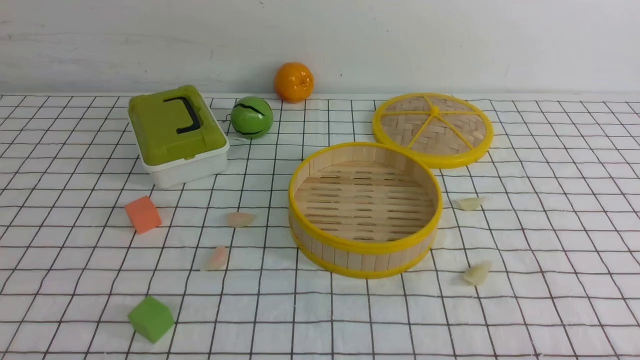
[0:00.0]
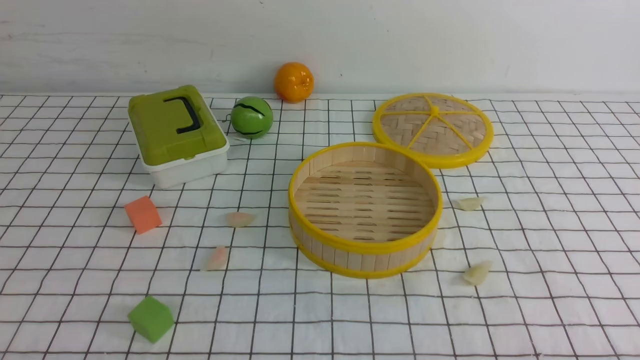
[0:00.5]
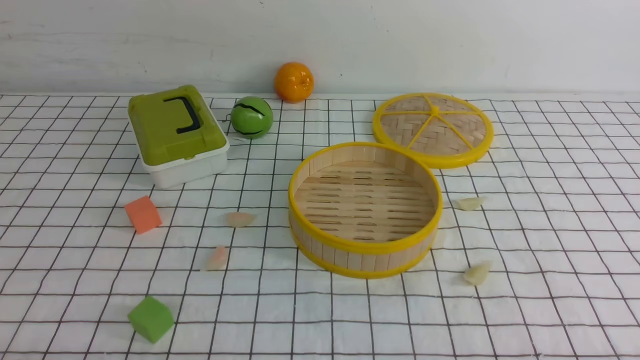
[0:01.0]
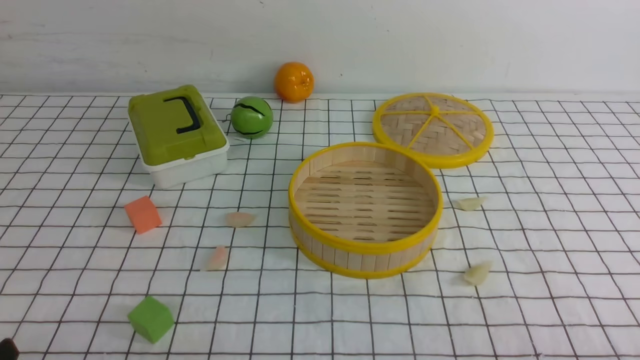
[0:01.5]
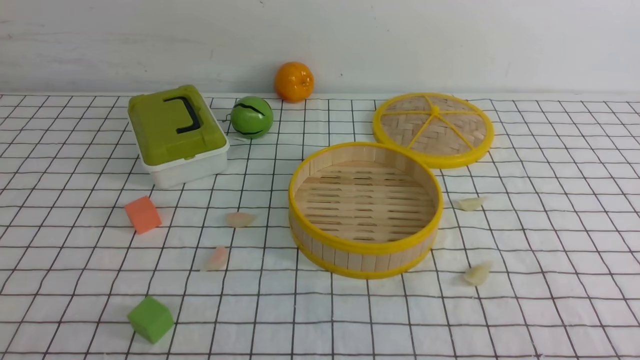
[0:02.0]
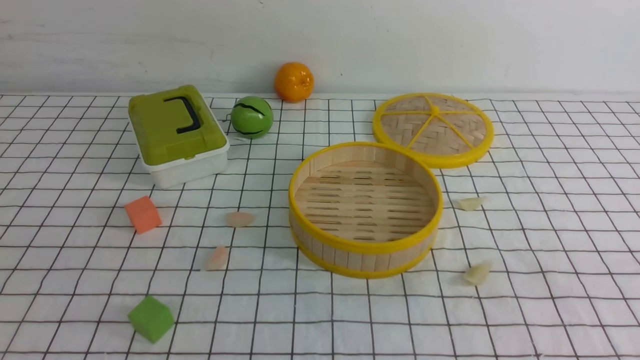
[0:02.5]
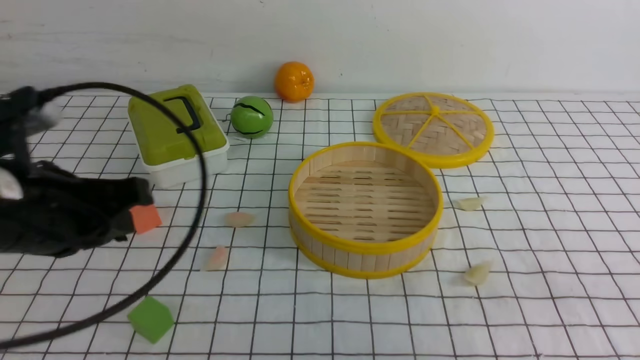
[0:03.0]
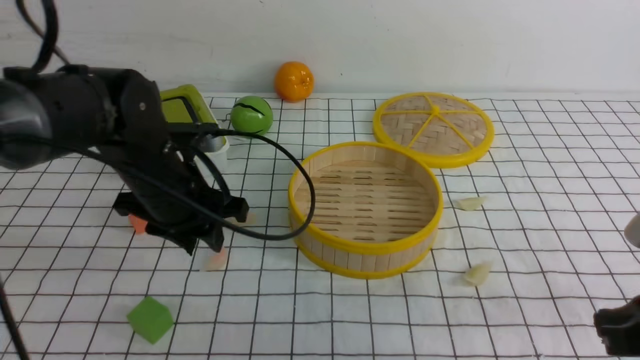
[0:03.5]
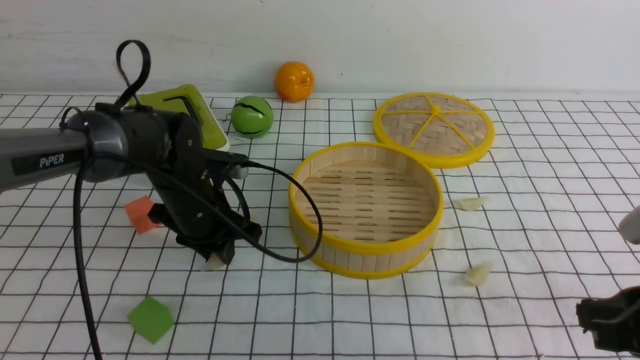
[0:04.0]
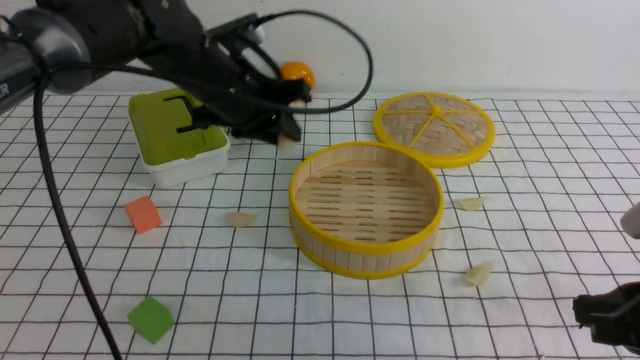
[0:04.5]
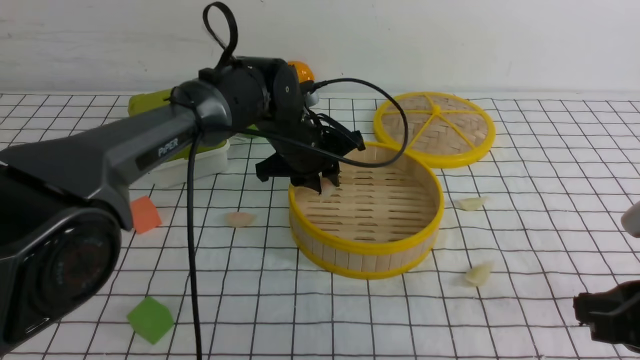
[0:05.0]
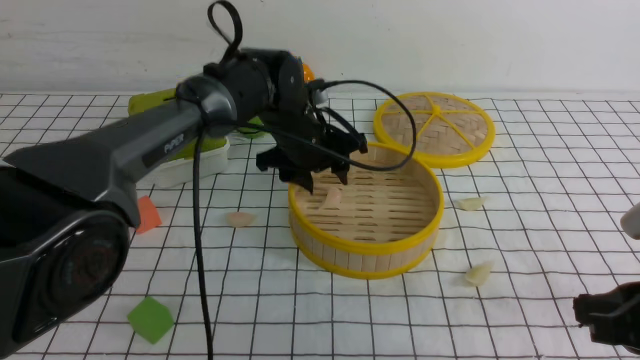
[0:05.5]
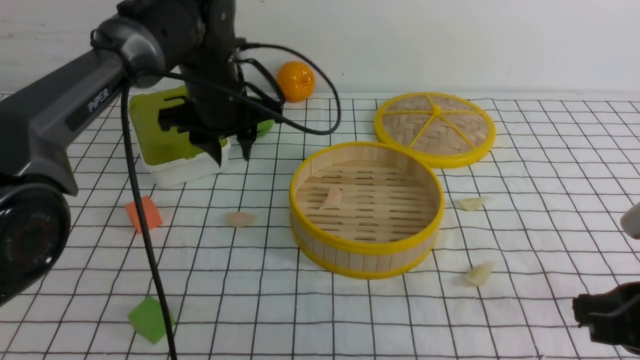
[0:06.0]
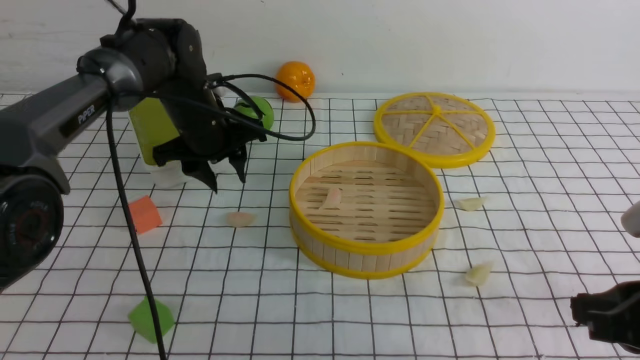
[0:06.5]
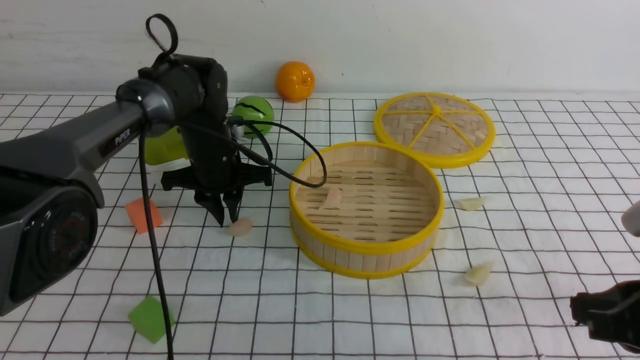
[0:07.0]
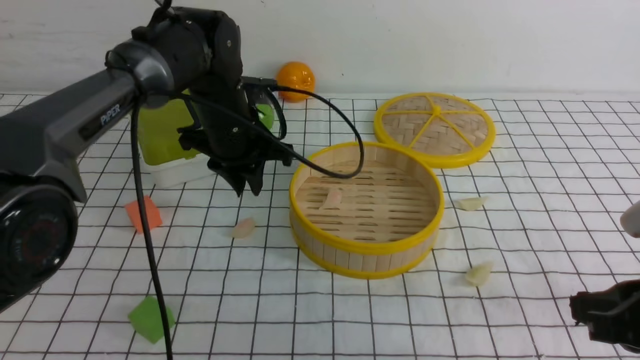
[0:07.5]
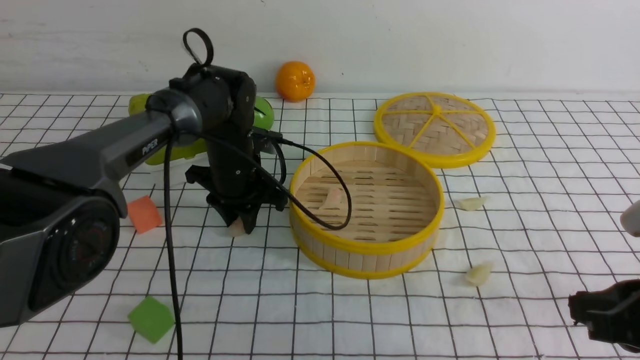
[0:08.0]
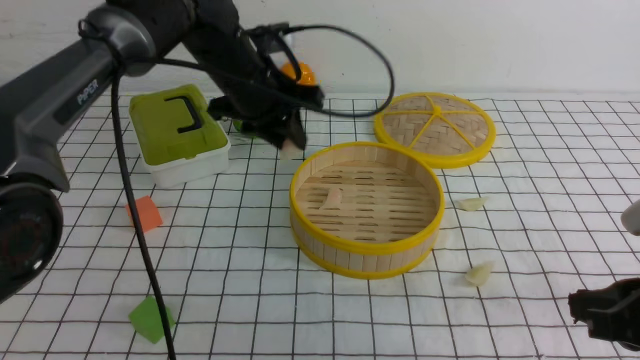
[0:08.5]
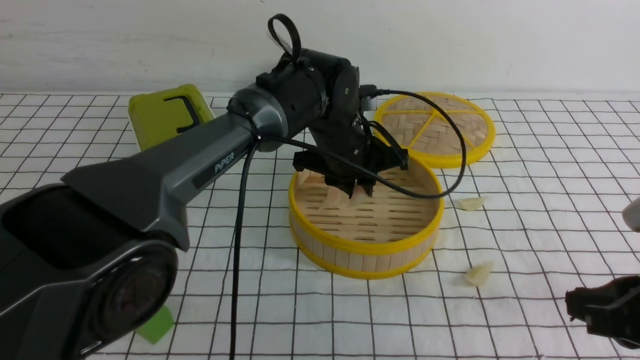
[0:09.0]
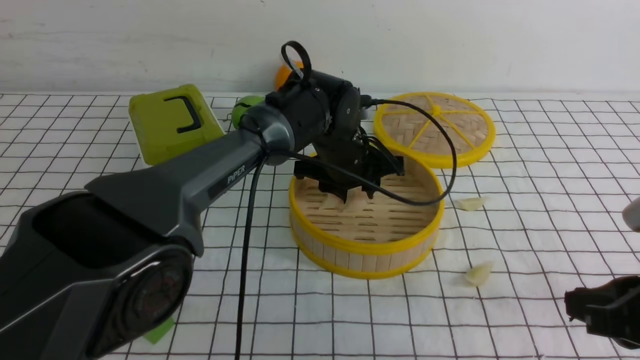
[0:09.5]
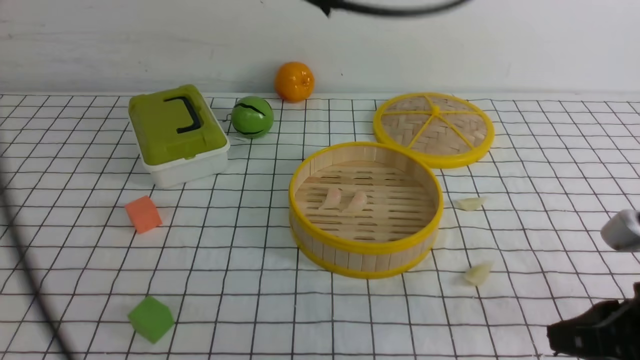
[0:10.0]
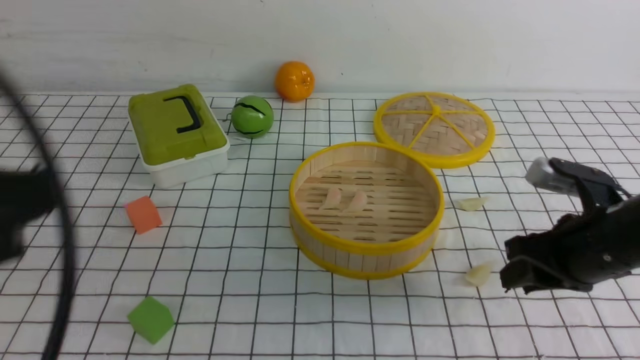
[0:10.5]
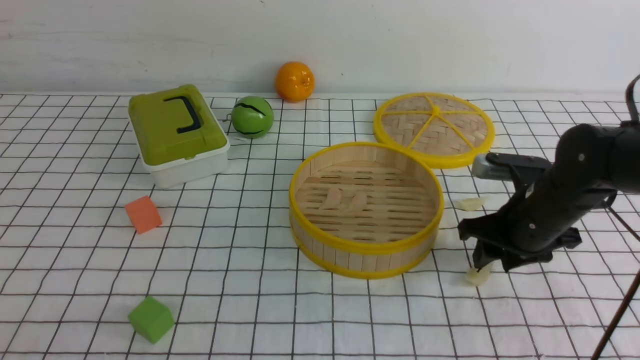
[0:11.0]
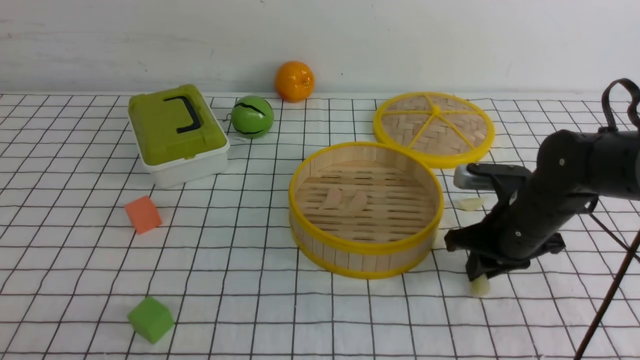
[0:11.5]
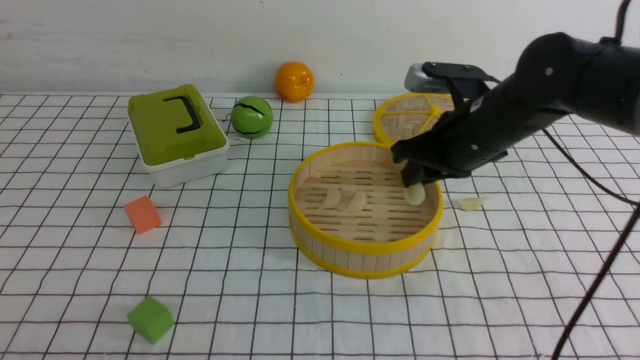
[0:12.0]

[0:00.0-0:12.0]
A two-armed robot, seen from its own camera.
Task of the whole recording: put the dumplings into the steamer on the table with the white tablecloth.
Step, 0:00.0 to 0:04.0: use the left arm to grab a dumpling.
Step, 0:04.5 to 0:05.5: use the left arm to put the dumpling into the steamer.
Step, 0:06.0 to 0:08.0: use the left arm to grab a dumpling.
Step, 0:08.5 to 0:09.5: use the left arm to put the dumpling into the steamer.
Step, 0:10.0 to 0:11.0: use the right arm to grab a dumpling.
0:02.0 to 0:04.0: The right gripper travels forward by approximately 15 cm, and closes its fingers. Meanwhile the left gripper moves forward, about 35 cm, and closes, then reopens.
0:04.0 to 0:06.0: The left gripper goes roughly 10 cm upward and forward, and travels to the right and back again, some 10 cm each way.
0:06.0 to 0:08.0: The left gripper travels downward by approximately 10 cm.
0:08.0 to 0:10.0: The left gripper goes up and down, about 30 cm each way, reversing 2 times, and closes its fingers.
0:10.0 to 0:12.0: The right gripper shifts approximately 25 cm forward and to the left, and opens, then closes once more, while the left gripper travels backward, downward and to the left by roughly 40 cm.

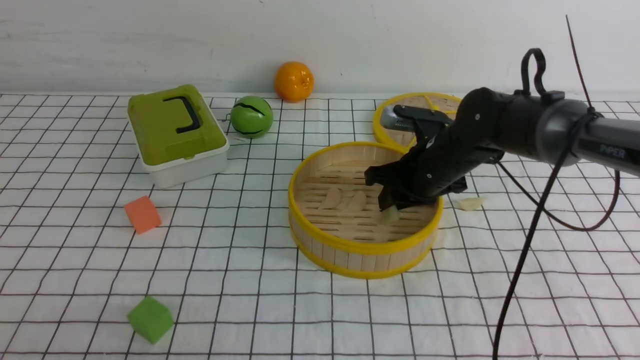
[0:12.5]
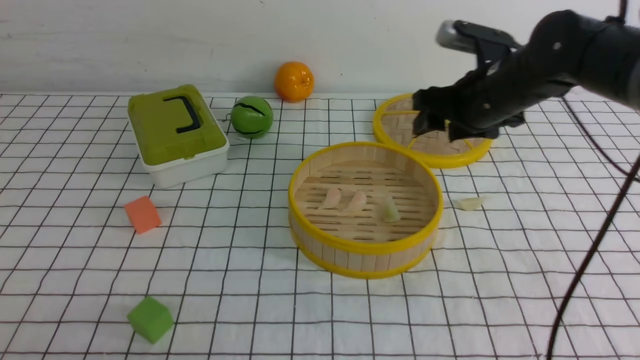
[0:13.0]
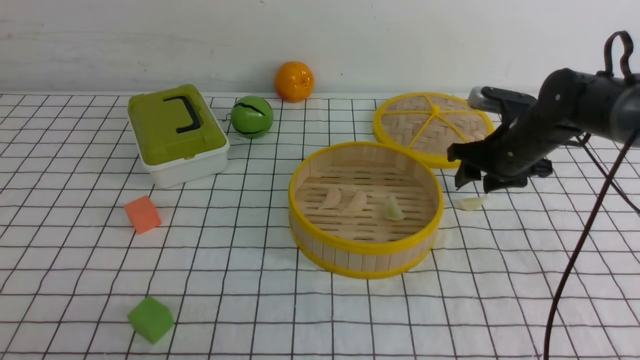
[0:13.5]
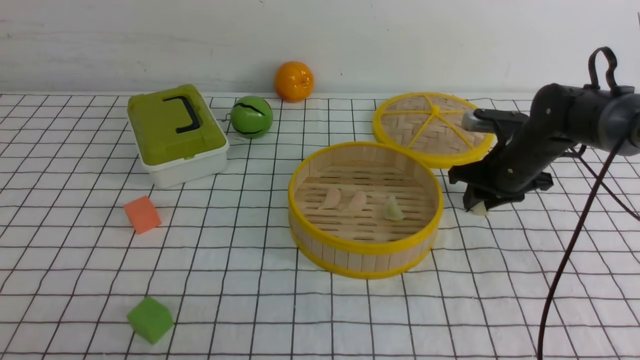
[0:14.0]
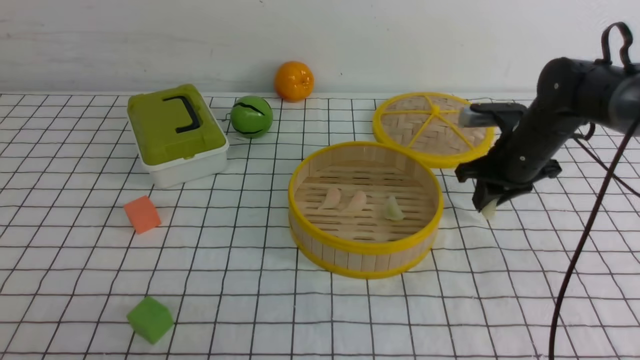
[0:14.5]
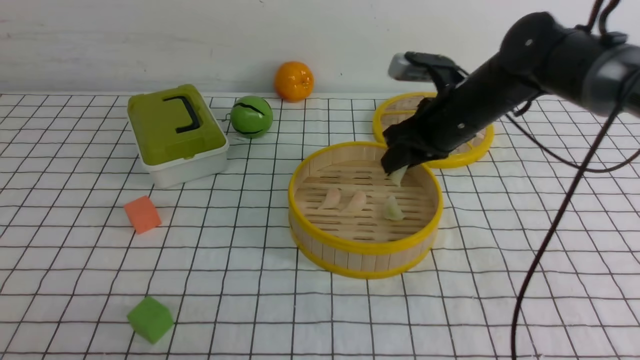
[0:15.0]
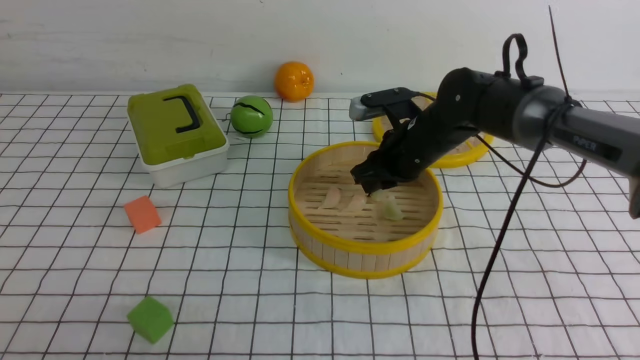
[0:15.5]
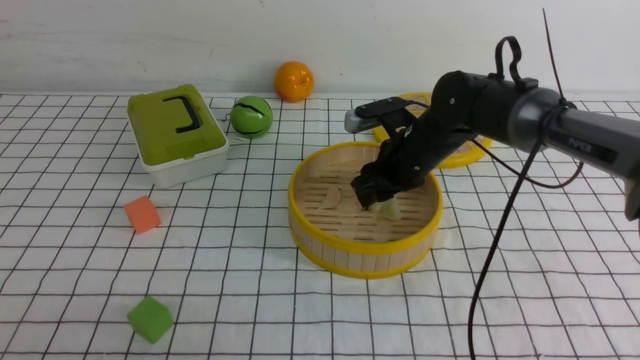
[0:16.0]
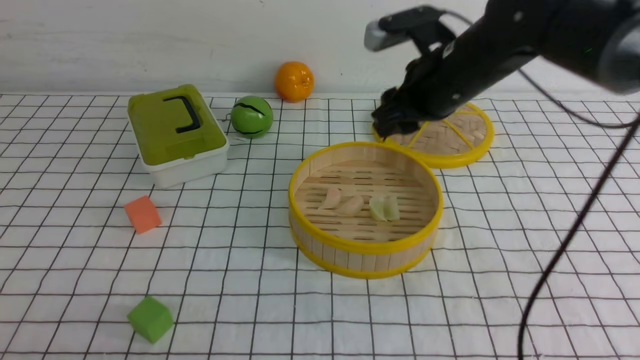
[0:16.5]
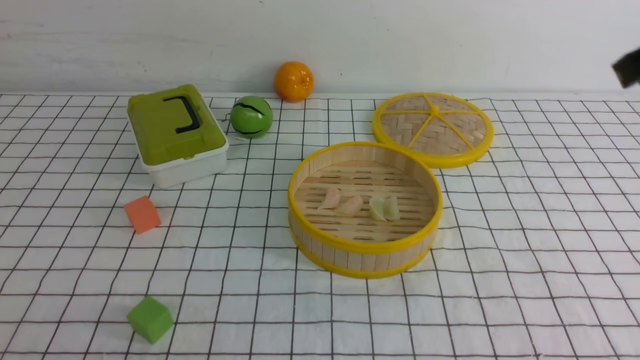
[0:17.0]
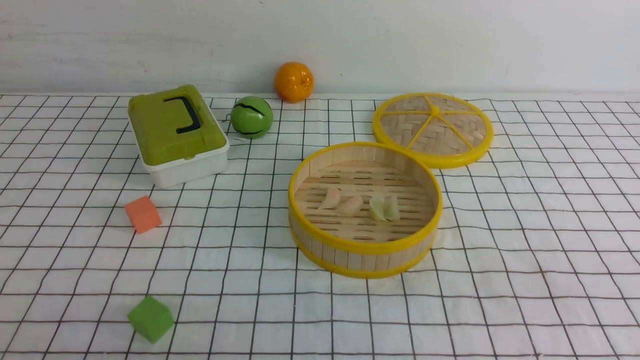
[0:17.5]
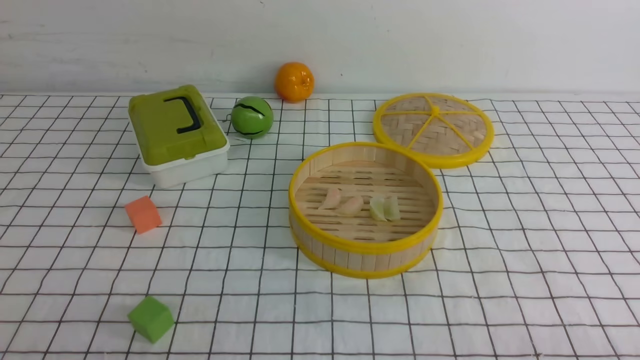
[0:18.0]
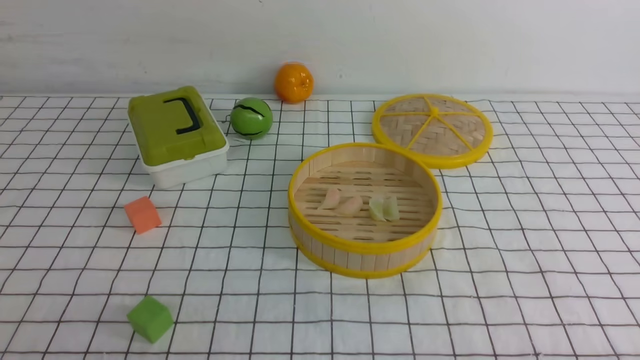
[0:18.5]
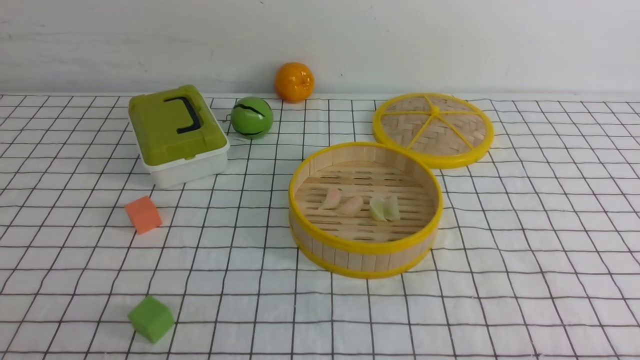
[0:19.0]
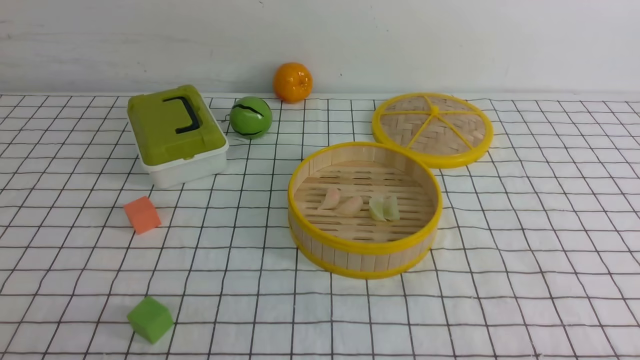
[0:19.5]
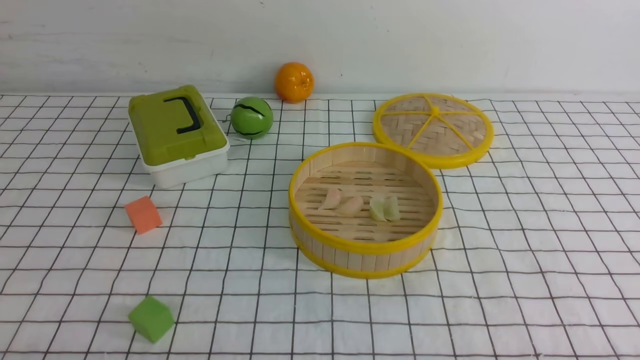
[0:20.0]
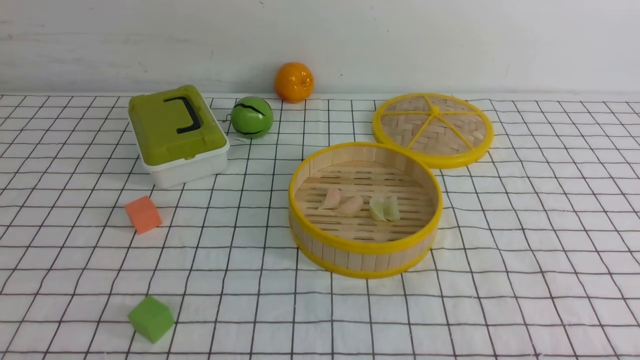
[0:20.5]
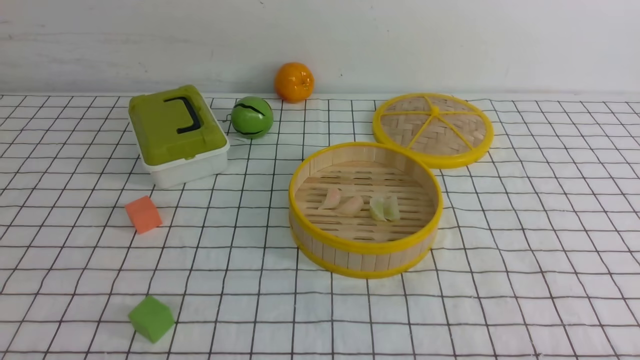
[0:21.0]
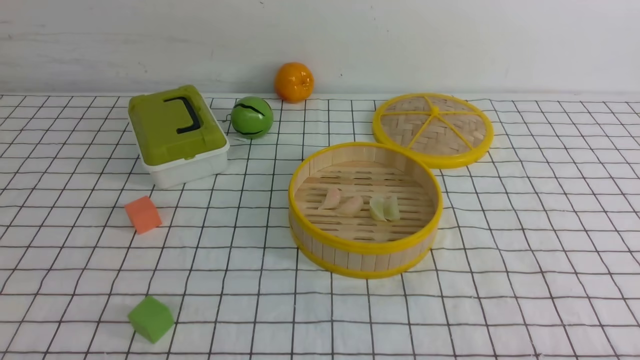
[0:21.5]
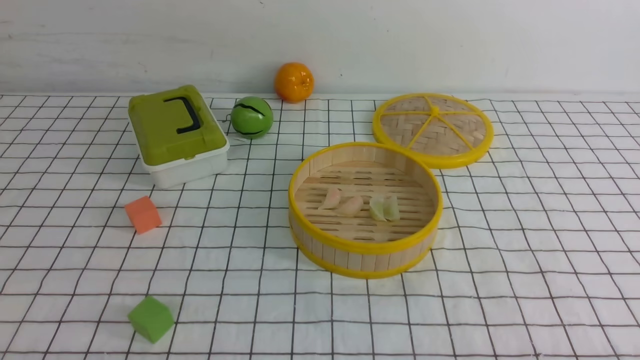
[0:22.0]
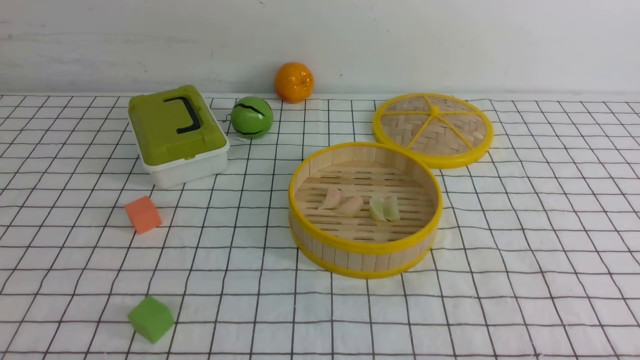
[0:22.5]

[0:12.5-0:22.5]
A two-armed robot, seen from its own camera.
Task of the whole recording: put the dumplings into the steamer on the table with the white tablecloth.
Step, 0:13.0 to 0:14.0: use the right arm to grab a dumpling.
Step, 0:14.5 to 0:16.0: use the right arm to put the dumpling into the steamer.
0:12.5 to 0:14.5: The right gripper heads to the right, covering about 10 cm.
0:14.5 to 0:16.5: The right gripper goes some 15 cm upward, to the left and backward.
0:16.5 to 0:18.5: The right gripper shifts about 40 cm backward, downward and to the right, and closes up.
0:20.5 to 0:22.5: The two grippers keep their place.
